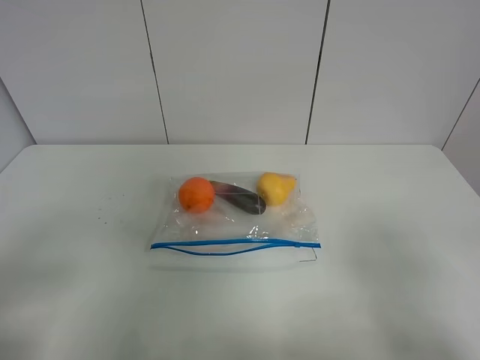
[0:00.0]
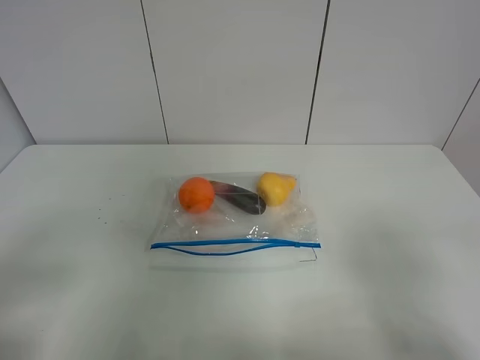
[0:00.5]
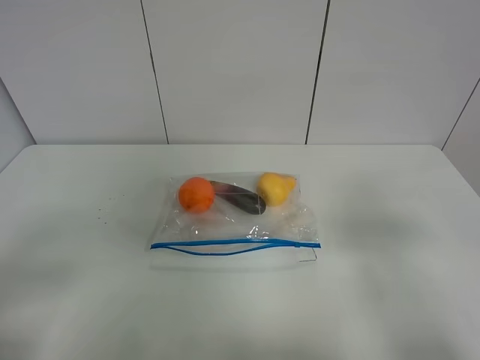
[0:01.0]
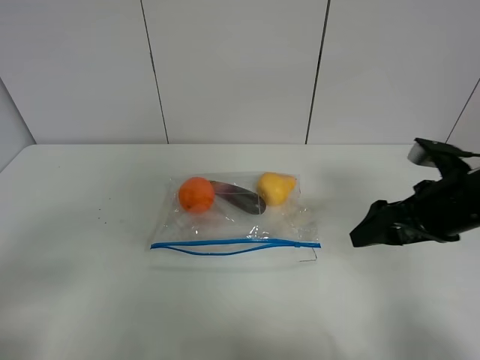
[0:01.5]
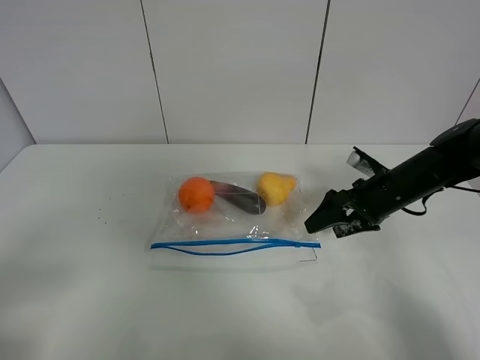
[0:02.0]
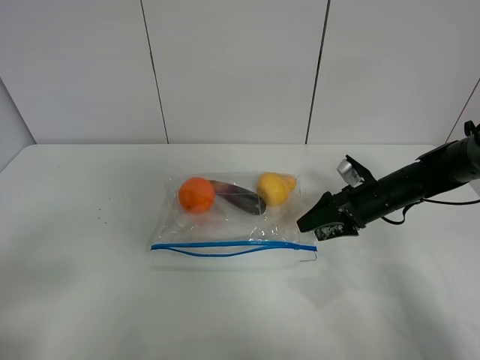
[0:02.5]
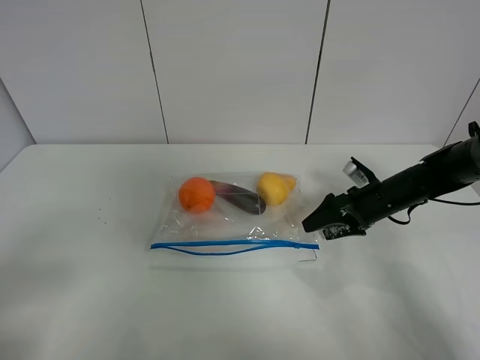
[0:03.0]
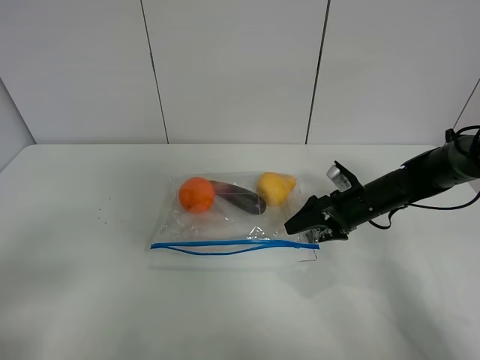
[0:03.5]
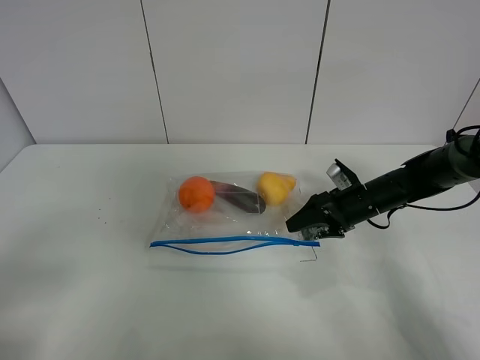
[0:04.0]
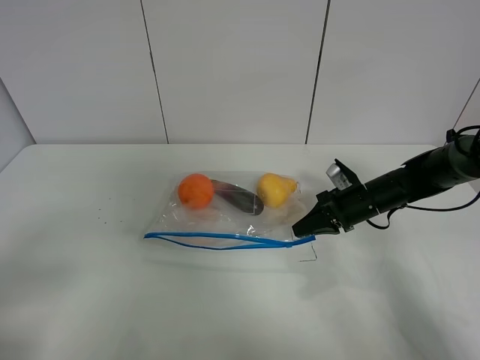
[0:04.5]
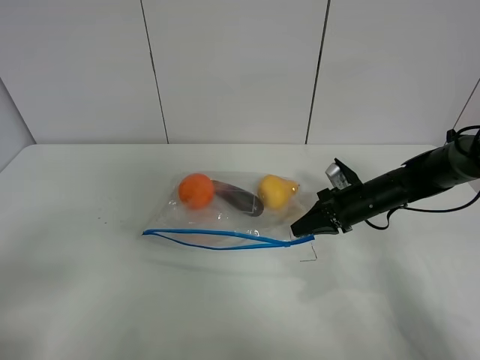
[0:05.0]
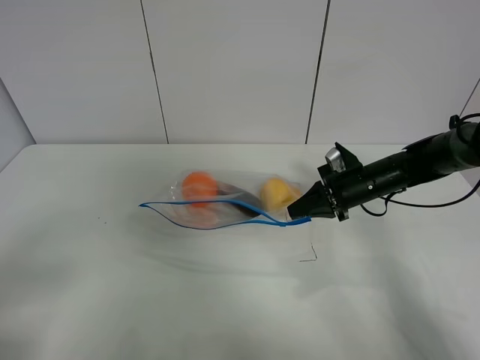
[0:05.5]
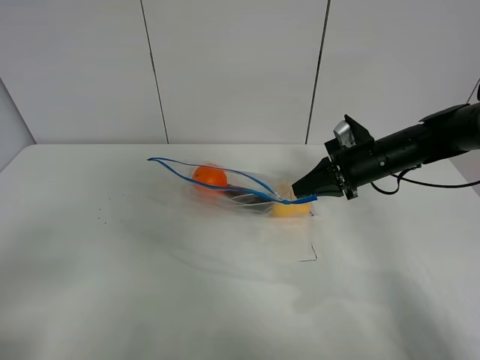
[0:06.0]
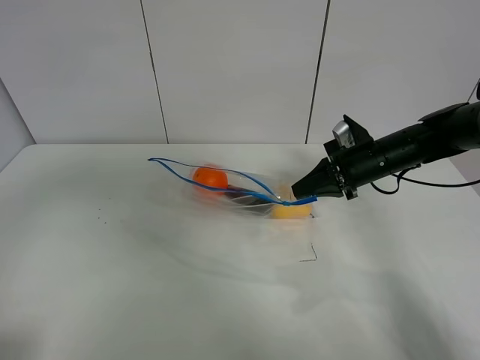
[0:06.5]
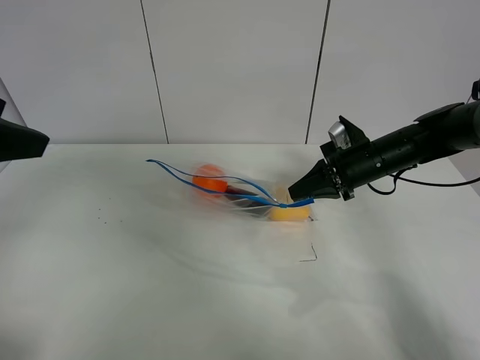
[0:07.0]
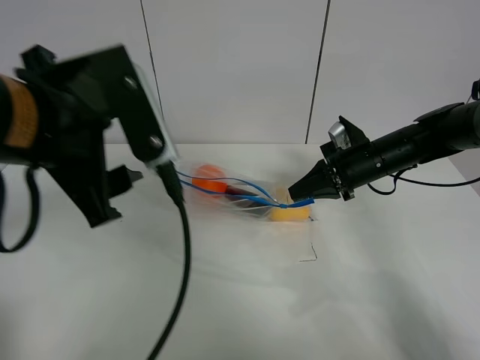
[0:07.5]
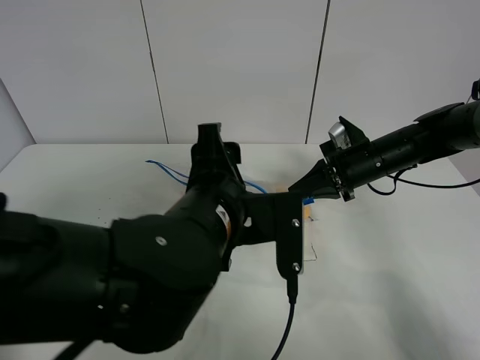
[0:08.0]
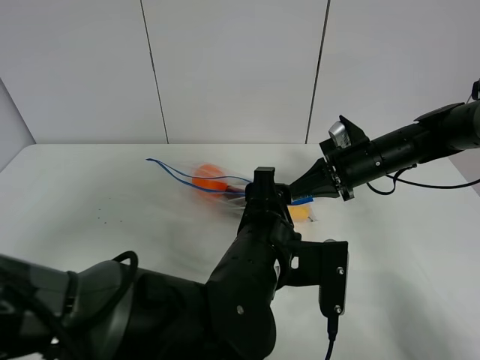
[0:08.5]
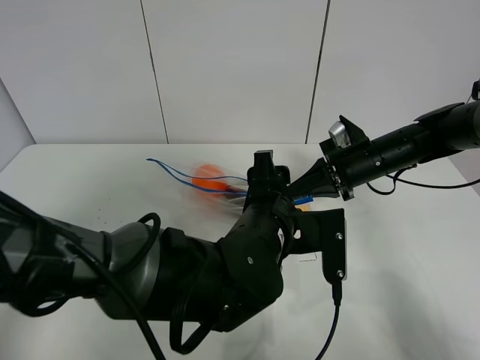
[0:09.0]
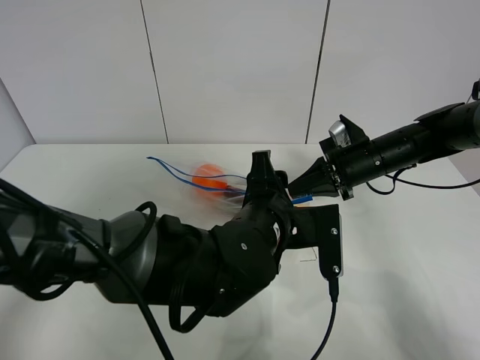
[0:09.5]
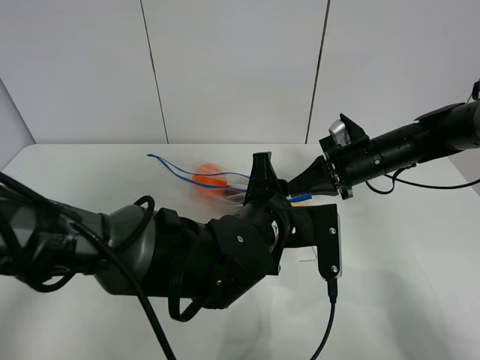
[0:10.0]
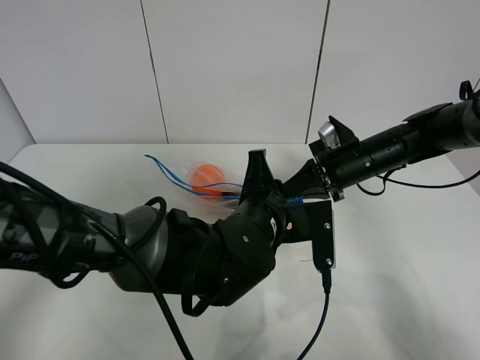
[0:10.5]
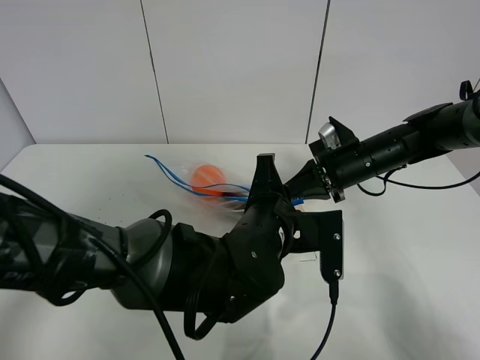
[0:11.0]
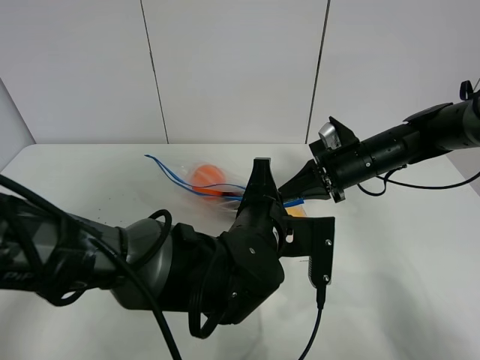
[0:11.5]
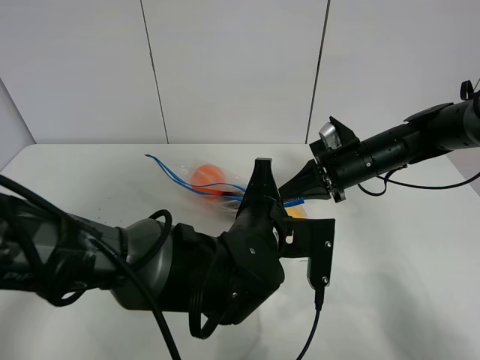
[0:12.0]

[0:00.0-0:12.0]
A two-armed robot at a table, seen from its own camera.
Step, 0:00.0 to 0:04.0: Grasp the fruit bag with right gripper.
Step, 0:04.5 to 0:06.0: Lift the fruit bag with your right gripper.
0:00.0 to 0:02.0: The right gripper moves forward and downward, some 35 cm.
0:02.0 to 0:04.0: The right gripper changes place by approximately 5 cm.
0:04.0 to 0:06.0: The right gripper shifts some 10 cm upward, and closes.
0:06.0 to 0:08.0: The left gripper travels to the right and forward by about 35 cm.
0:08.0 to 0:10.0: The left gripper shifts roughly 5 cm downward.
0:10.0 to 0:12.0: The grippers make only small movements.

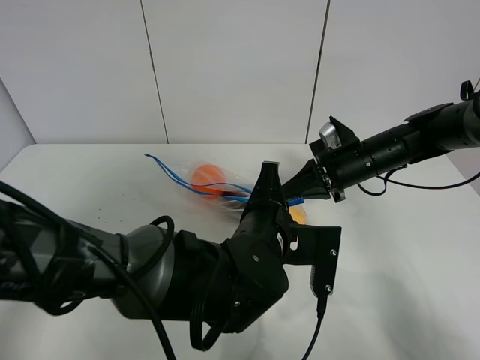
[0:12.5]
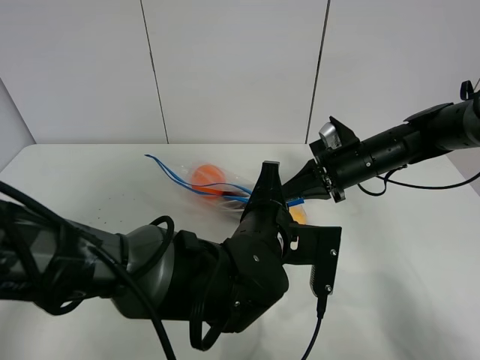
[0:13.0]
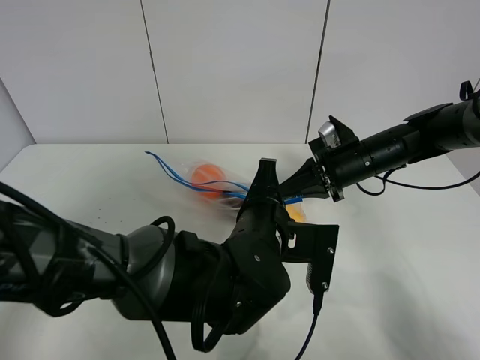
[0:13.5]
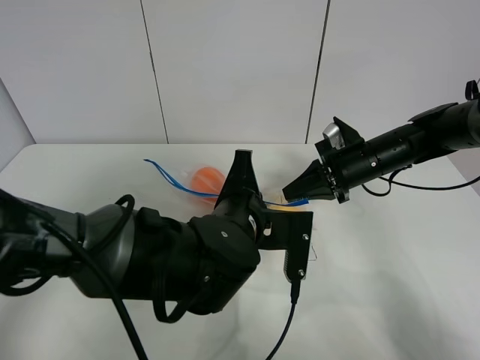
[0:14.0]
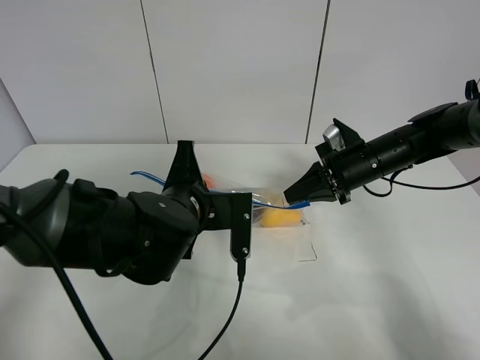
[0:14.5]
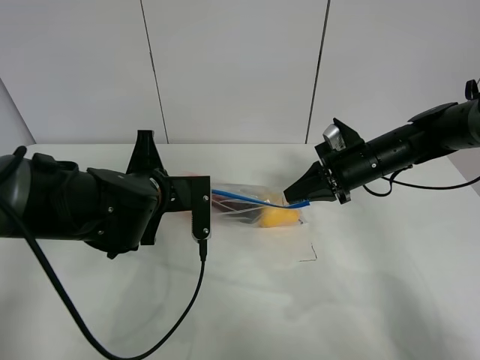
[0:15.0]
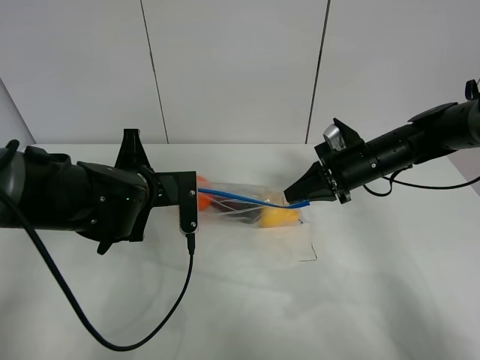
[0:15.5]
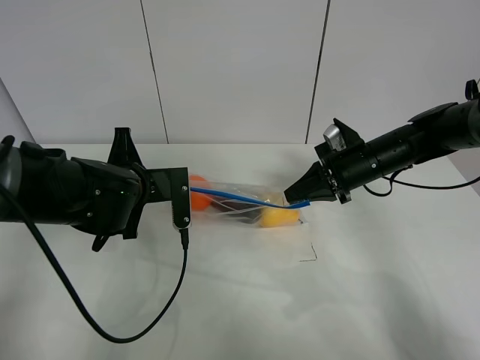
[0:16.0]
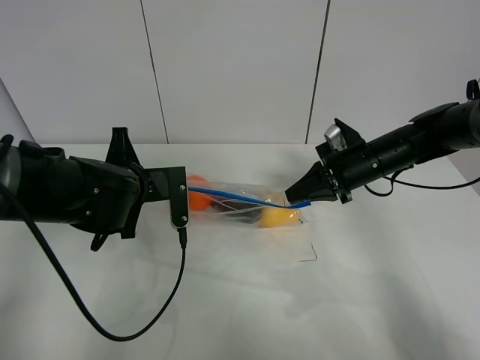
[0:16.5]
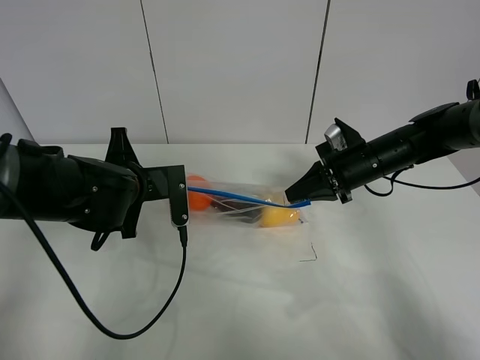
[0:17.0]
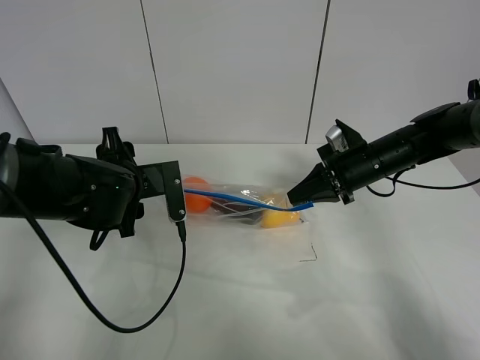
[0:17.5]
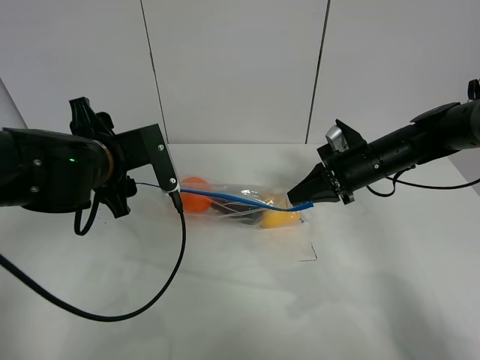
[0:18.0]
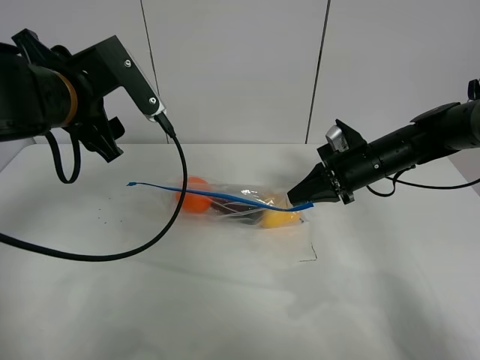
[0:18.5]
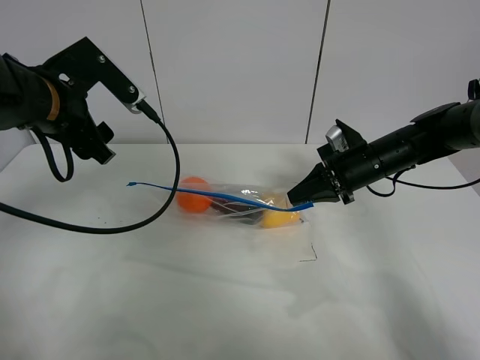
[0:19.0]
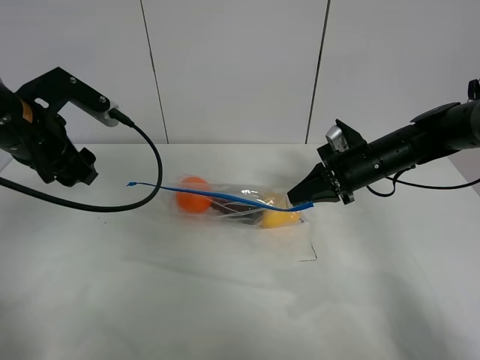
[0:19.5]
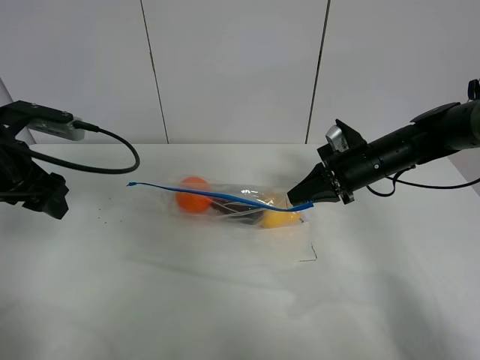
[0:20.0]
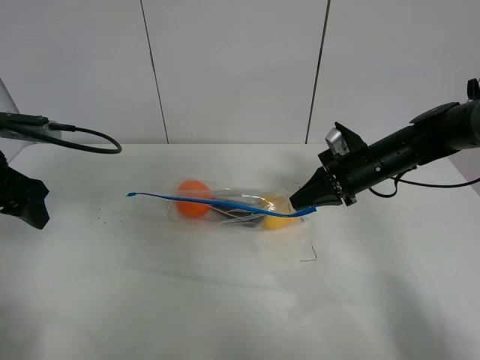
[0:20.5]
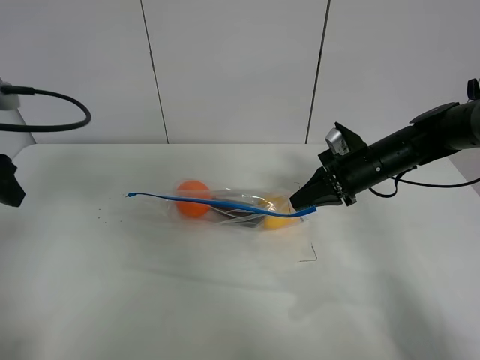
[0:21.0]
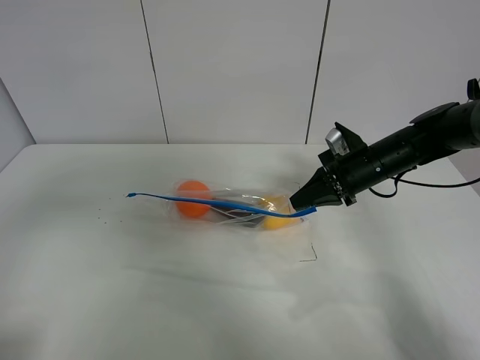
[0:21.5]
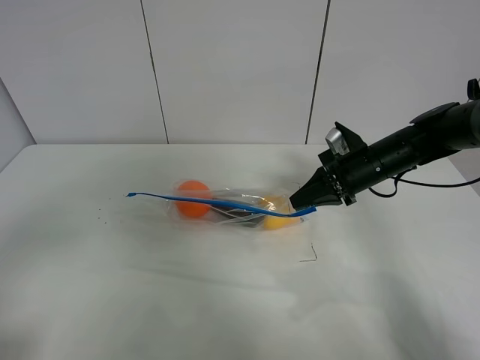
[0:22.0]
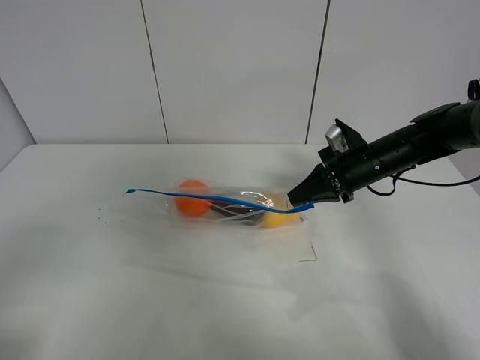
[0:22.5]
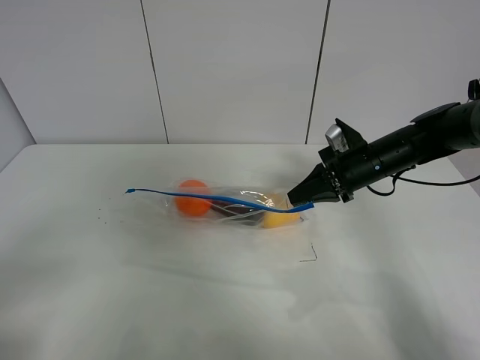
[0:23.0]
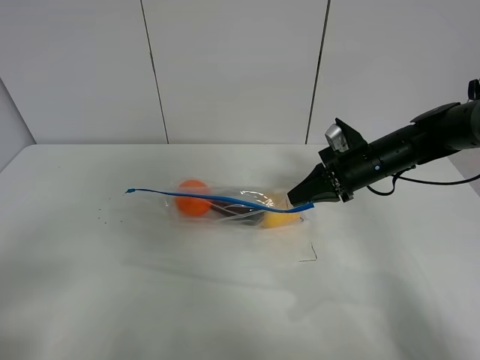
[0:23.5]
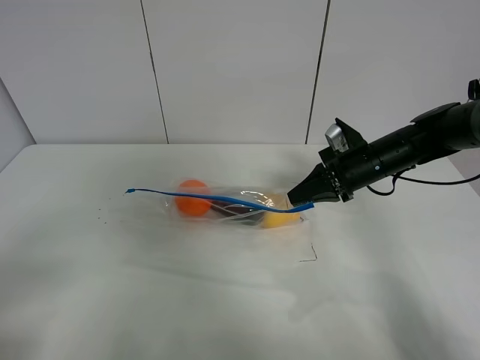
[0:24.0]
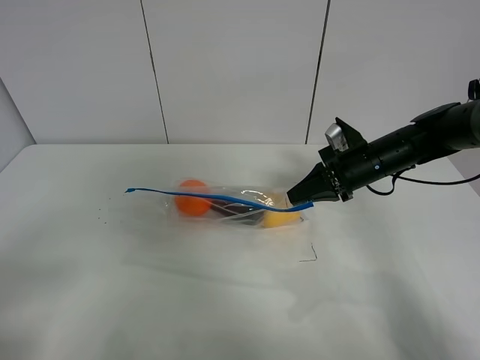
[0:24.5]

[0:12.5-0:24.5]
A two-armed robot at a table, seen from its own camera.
Step, 0:12.5 to 0:17.5: Pull the fruit bag with left gripper.
0:12.5 to 0:14.5: The left gripper shifts roughly 10 cm to the left.
0:14.5 to 0:16.5: The left gripper travels to the left by about 10 cm.
0:16.5 to 0:18.5: The left gripper is displaced upward by about 15 cm, and opens its fingers.
0:18.5 to 0:20.5: The left gripper travels to the left by about 15 cm.
0:20.5 to 0:22.5: The left gripper heads backward, covering approximately 30 cm.

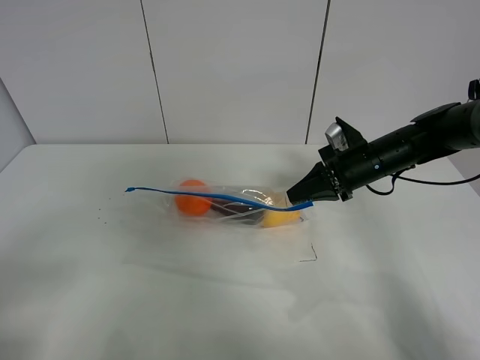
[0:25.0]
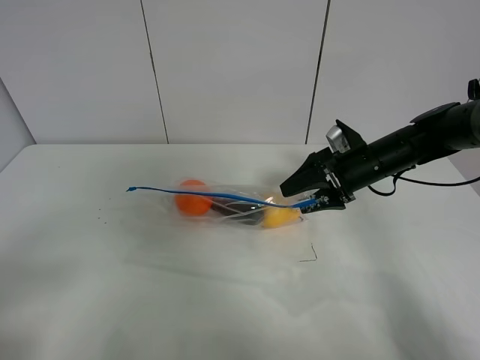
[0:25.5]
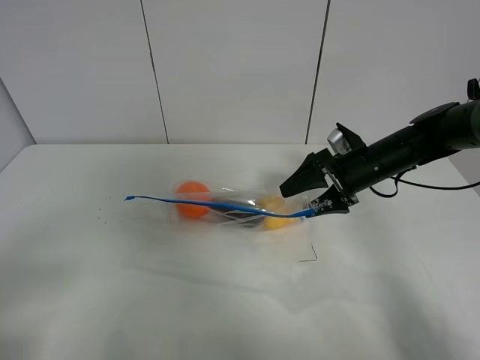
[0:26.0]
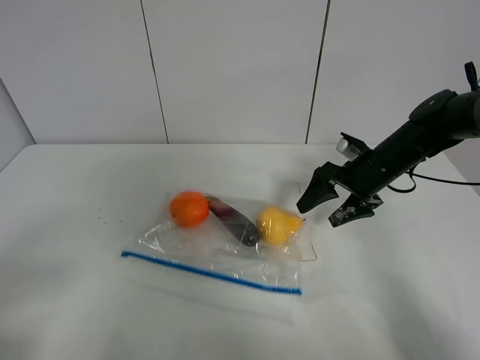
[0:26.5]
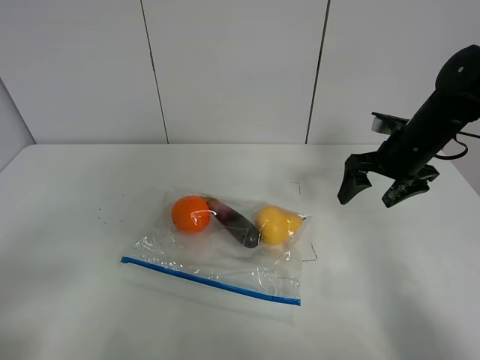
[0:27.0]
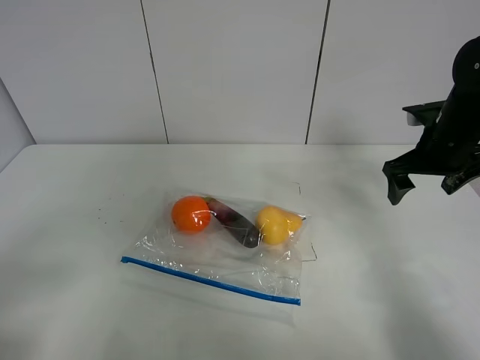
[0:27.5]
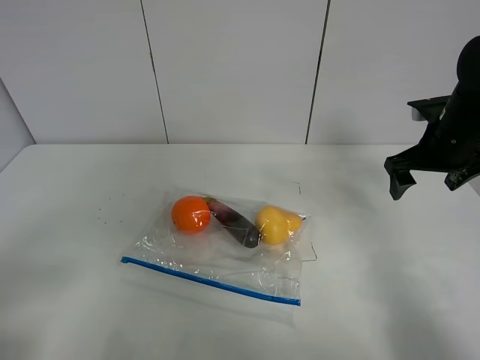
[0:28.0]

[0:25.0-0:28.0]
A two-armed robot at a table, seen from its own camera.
0:25.0 to 0:26.5: The right gripper opens up.
0:26.5 to 0:28.0: The right gripper heads upward and to the right, covering approximately 10 cm.
